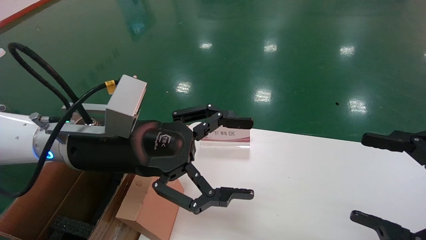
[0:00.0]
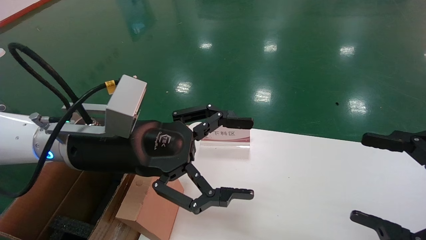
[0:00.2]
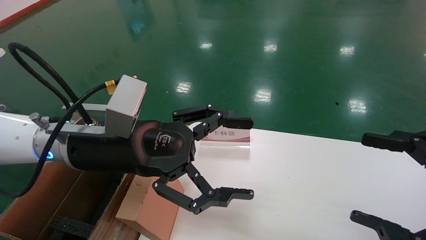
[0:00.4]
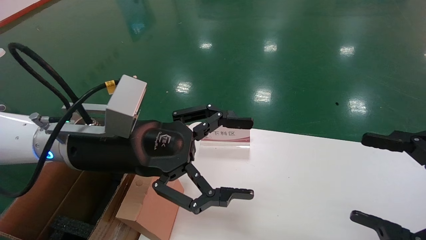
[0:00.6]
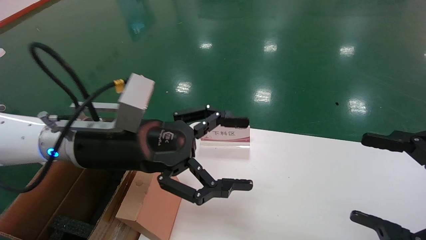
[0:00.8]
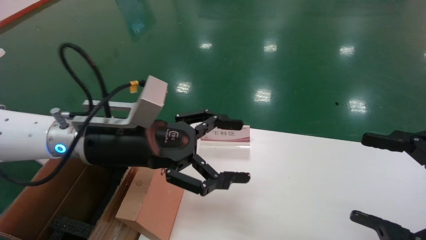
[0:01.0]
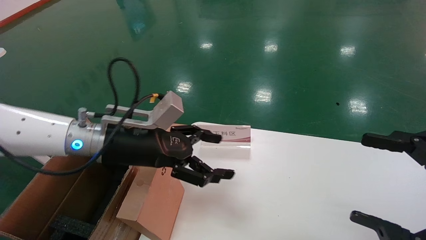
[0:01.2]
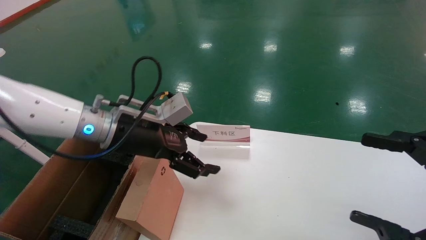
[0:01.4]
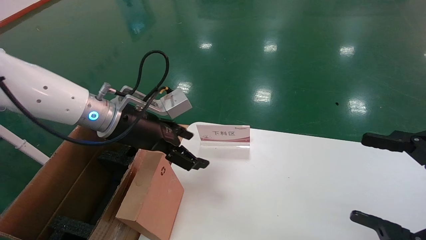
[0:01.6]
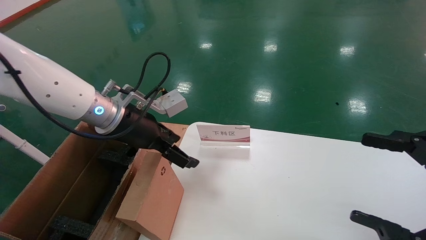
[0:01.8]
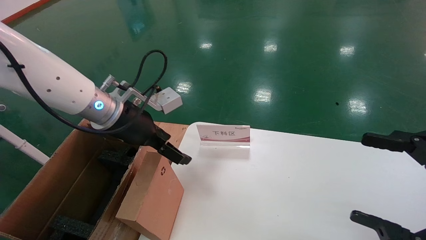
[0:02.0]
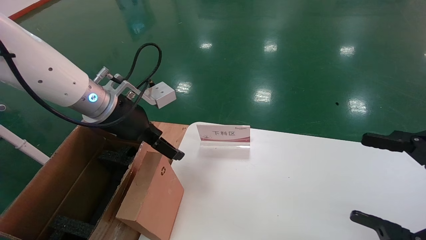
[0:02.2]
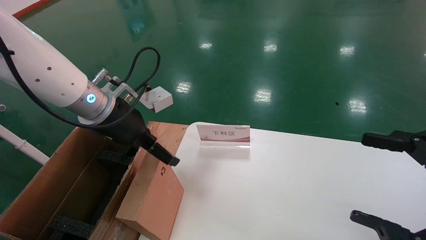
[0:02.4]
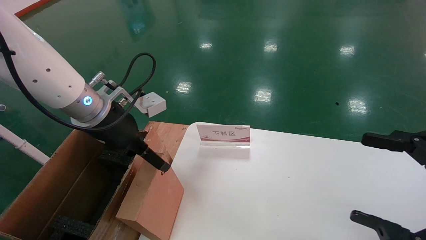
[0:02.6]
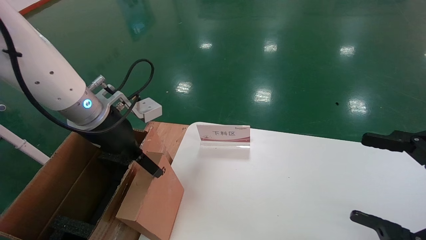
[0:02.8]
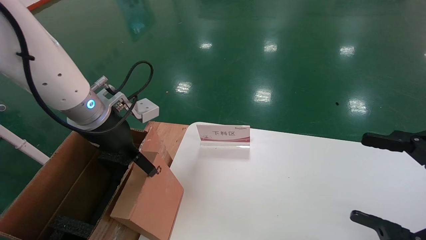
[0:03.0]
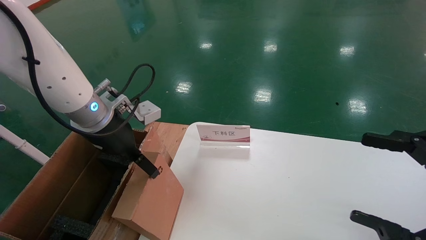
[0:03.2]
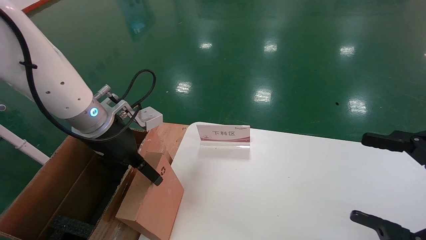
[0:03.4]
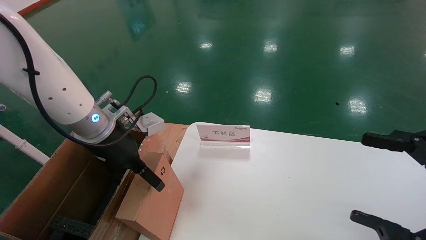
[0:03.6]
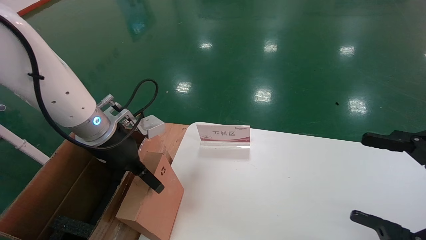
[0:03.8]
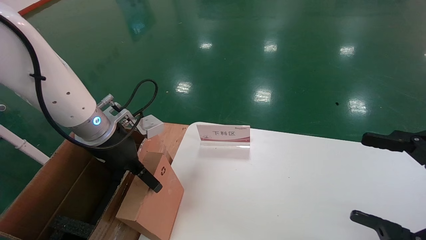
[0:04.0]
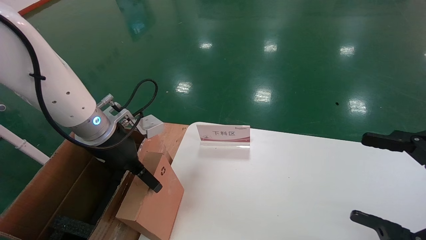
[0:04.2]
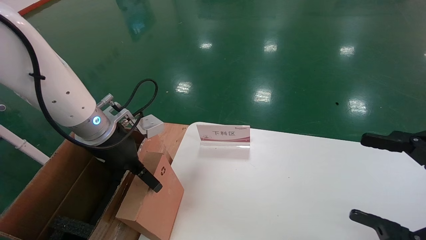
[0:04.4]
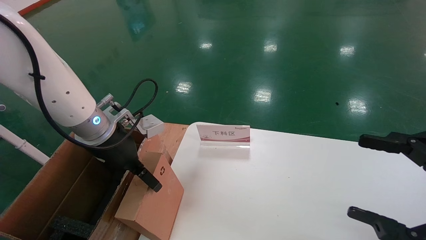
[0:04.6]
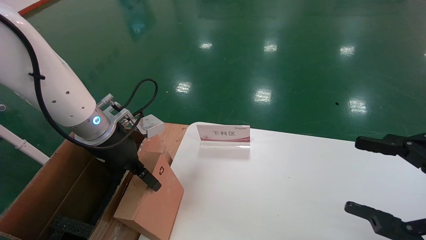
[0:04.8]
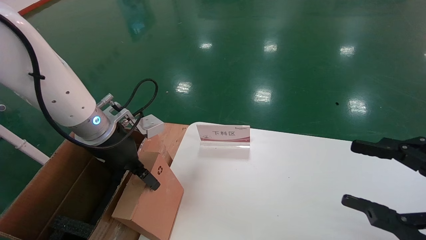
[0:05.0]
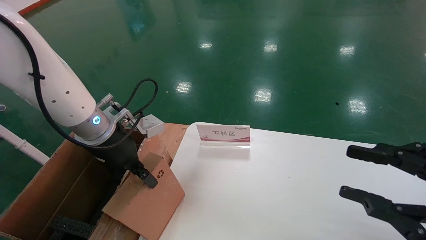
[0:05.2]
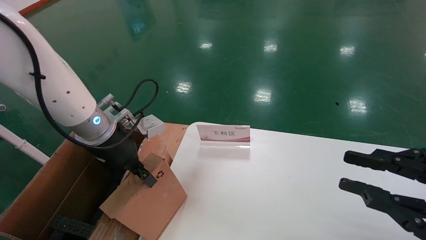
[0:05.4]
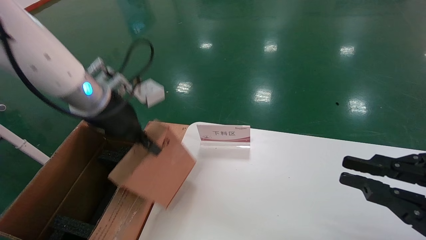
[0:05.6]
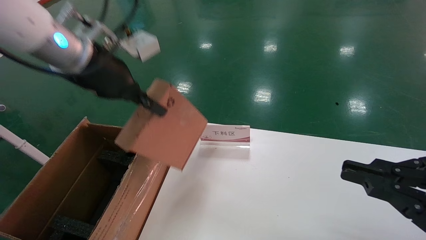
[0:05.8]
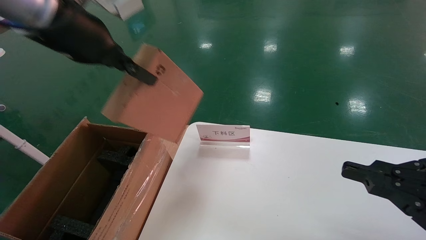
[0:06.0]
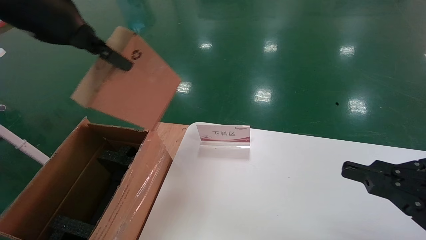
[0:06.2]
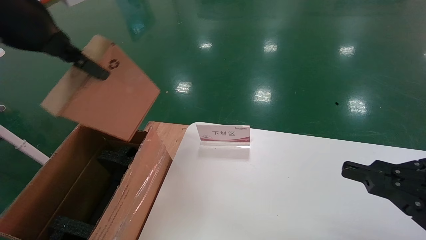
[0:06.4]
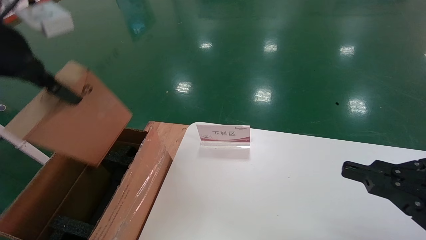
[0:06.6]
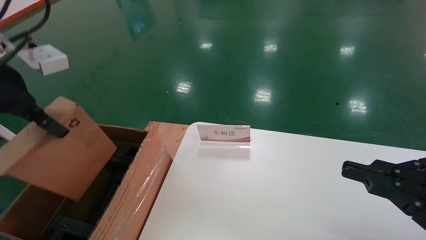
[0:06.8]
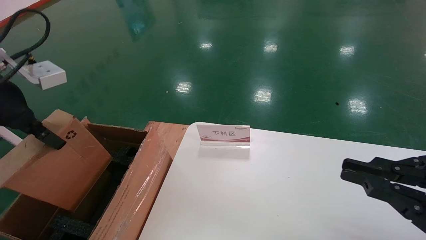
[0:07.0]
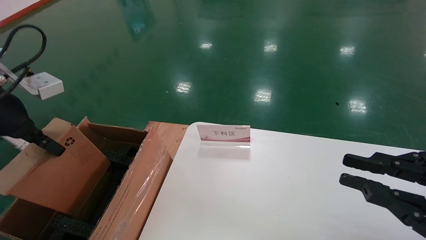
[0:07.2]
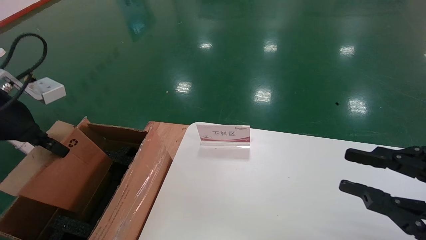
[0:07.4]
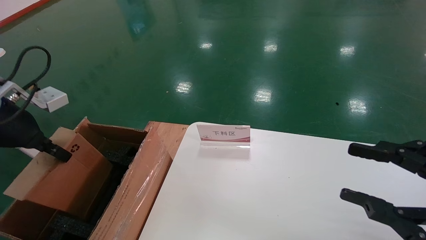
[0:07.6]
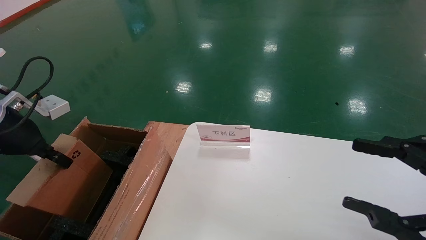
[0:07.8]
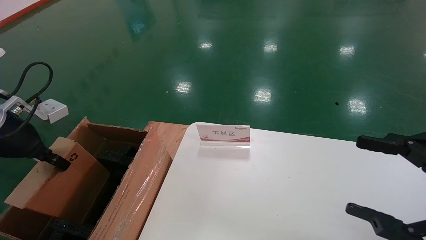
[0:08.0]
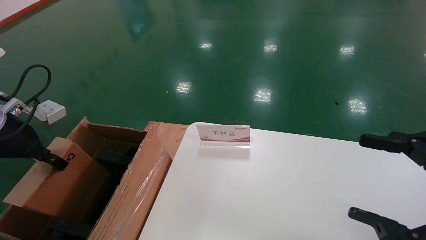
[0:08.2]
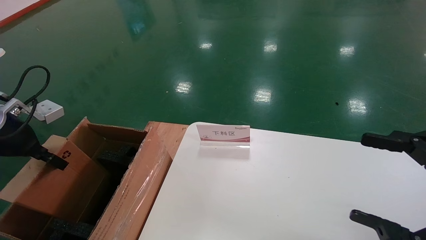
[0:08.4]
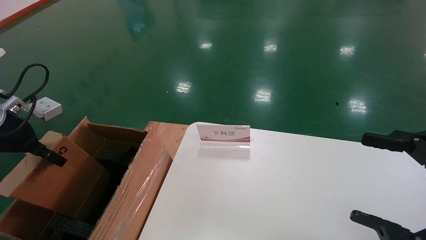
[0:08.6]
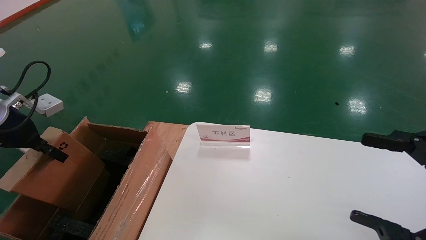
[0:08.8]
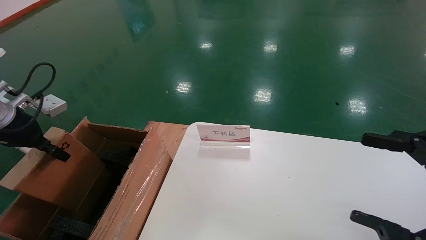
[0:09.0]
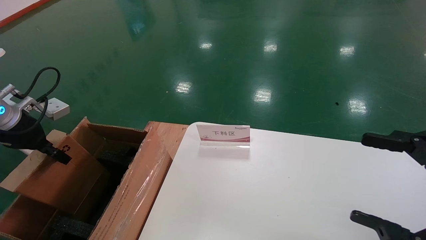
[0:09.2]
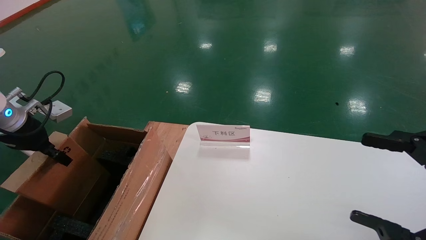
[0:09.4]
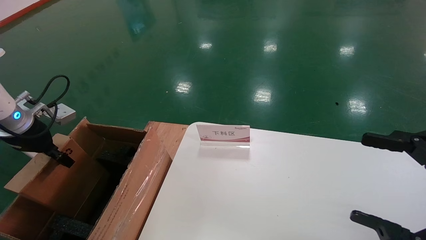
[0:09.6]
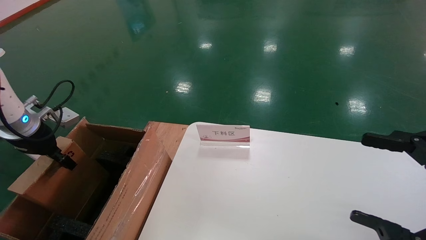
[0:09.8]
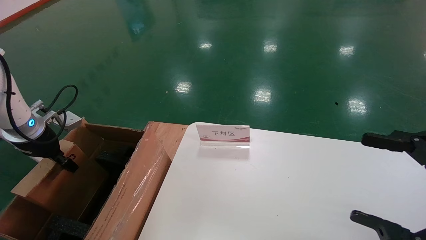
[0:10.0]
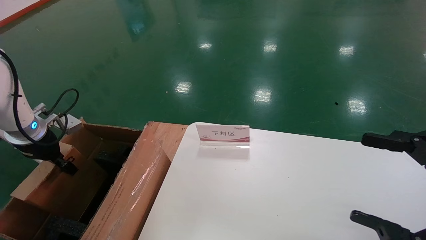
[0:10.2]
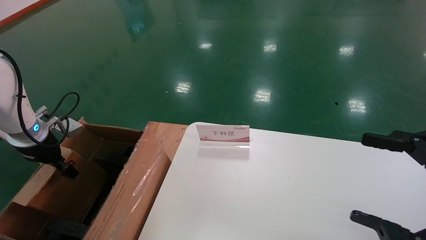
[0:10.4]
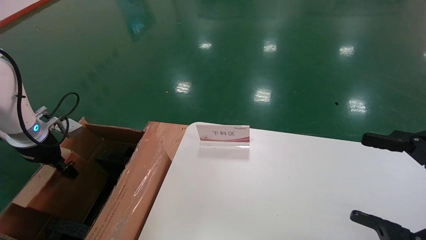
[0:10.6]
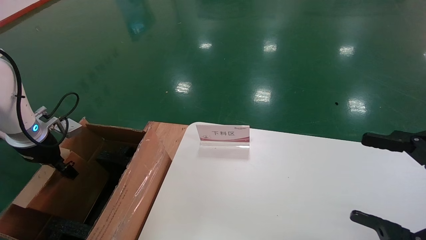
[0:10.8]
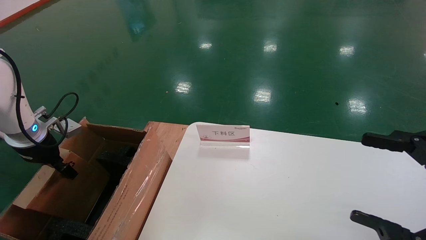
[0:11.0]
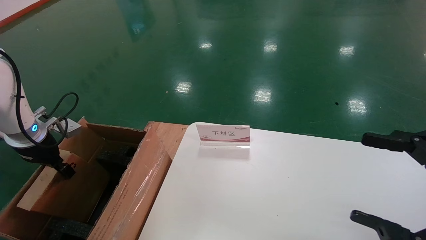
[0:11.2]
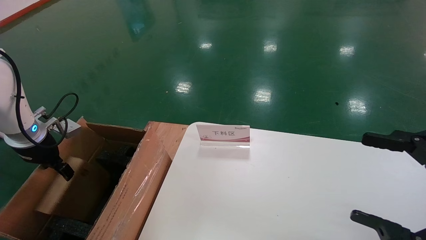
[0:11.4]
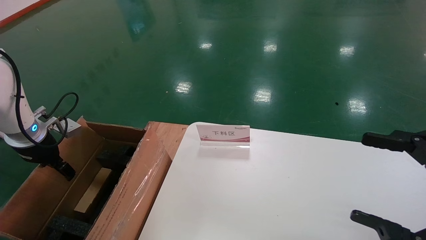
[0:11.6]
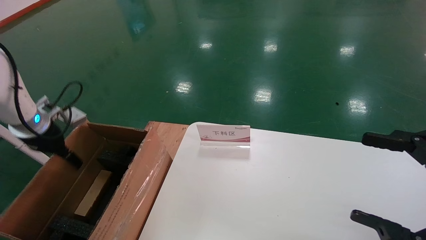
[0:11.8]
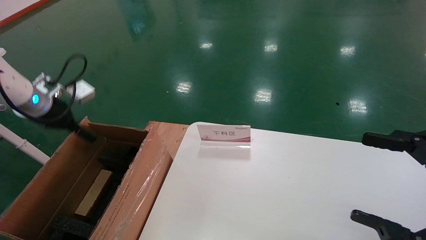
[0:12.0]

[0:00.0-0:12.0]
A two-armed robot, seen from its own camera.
Task of the whole recording: pick up the small cardboard box and load it into the large cardboard box.
Step, 0:01.0 to 0:06.0: Pick up the mouse and power cord box.
Step, 0:06.2 to 0:11.6: Place the mouse and power cord box into the case.
0:00.0 to 0:01.6: The left gripper shifts about 10 cm forward.
0:03.0 to 0:04.4: The grippers move only a little.
0:04.4 to 0:06.0: The right gripper closes; the left gripper shifts some 20 cm upward, and closes its fingers.
0:06.0 to 0:07.6: The left gripper is displaced to the left and downward by approximately 20 cm.
0:07.6 to 0:09.0: The right gripper opens, while the left gripper goes roughly 5 cm to the left.
0:09.0 to 0:10.4: The left gripper heads downward, covering roughly 5 cm.
0:10.4 to 0:12.0: The left gripper shifts roughly 5 cm upward, and opens its fingers.

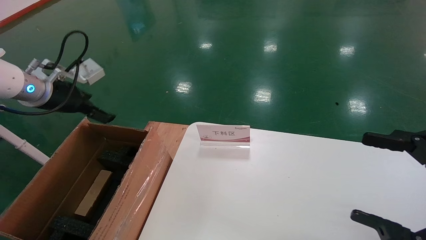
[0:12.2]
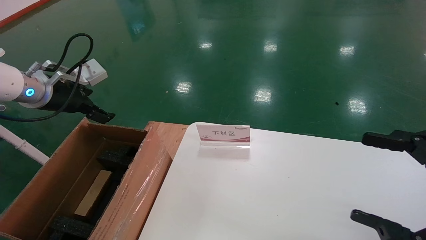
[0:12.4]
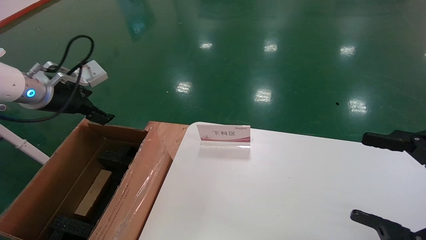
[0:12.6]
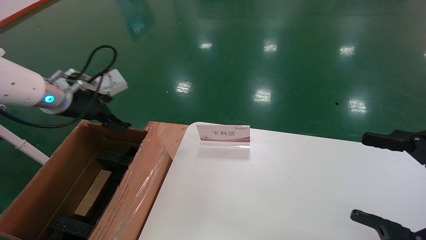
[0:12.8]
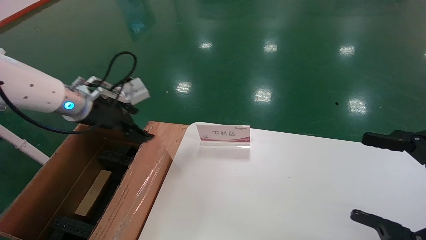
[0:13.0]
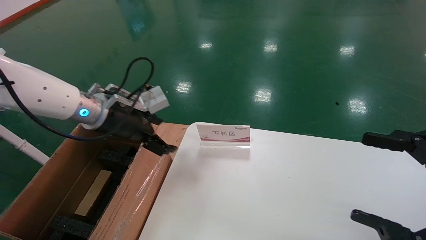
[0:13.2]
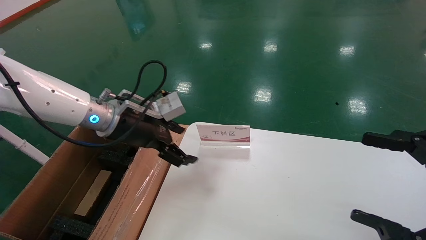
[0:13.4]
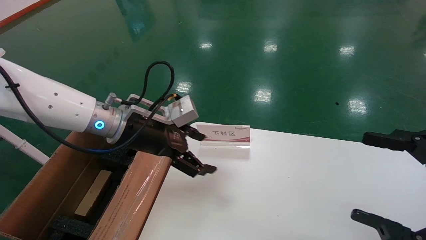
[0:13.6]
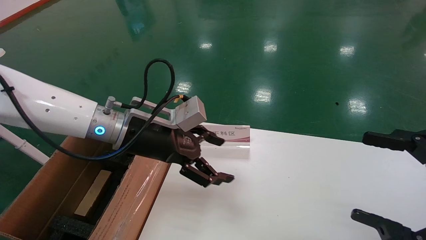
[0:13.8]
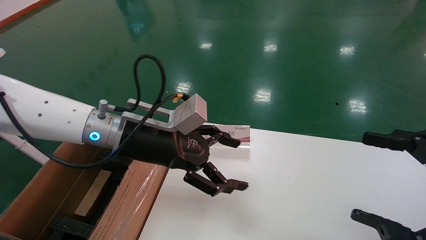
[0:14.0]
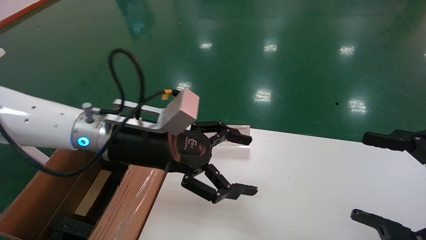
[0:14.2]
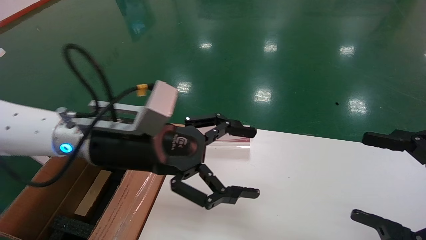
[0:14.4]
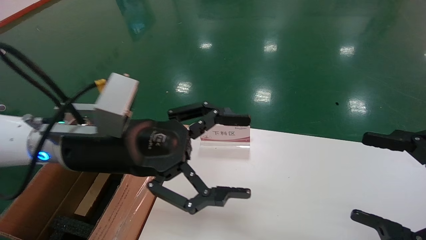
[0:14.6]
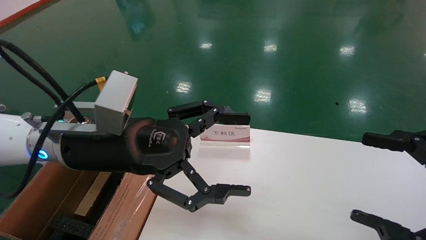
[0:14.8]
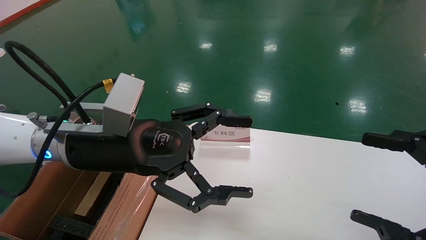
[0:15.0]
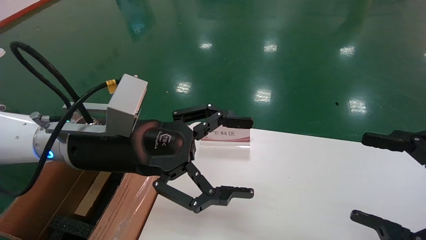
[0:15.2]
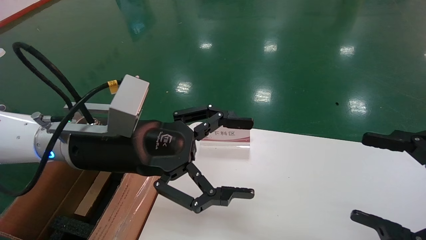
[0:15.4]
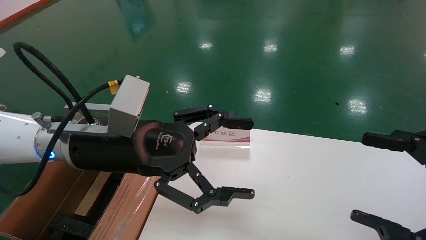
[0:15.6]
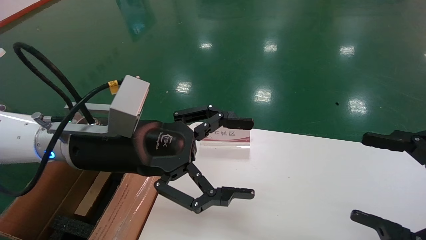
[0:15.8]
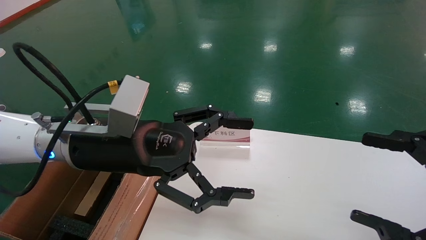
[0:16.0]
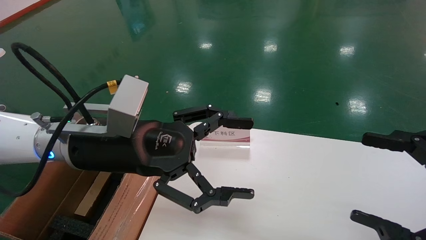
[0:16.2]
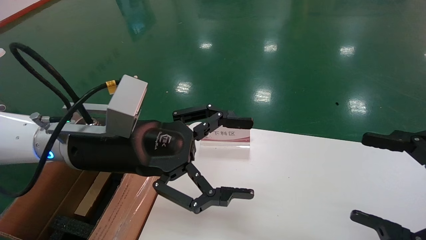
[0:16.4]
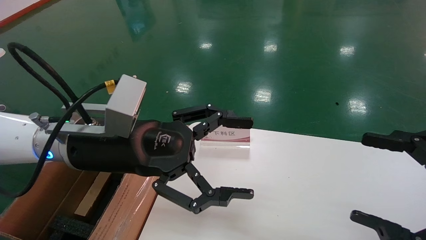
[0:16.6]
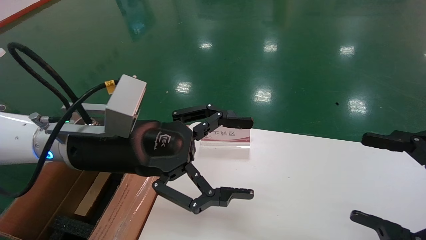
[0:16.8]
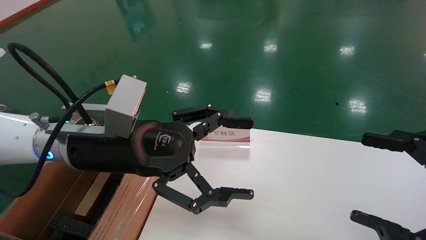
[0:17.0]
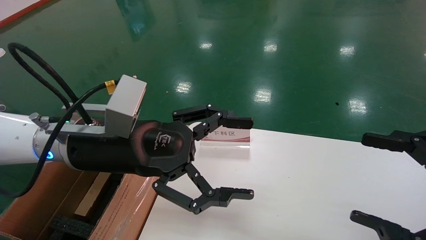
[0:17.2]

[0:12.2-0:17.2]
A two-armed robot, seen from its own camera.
Task of the whole recording: pick up the small cardboard box and load it into the large cardboard box.
0:12.2 to 0:13.8: The left gripper is displaced to the right by about 20 cm.
0:13.8 to 0:15.6: The left gripper goes about 5 cm backward.
0:15.6 to 0:17.2: Neither gripper changes place.
